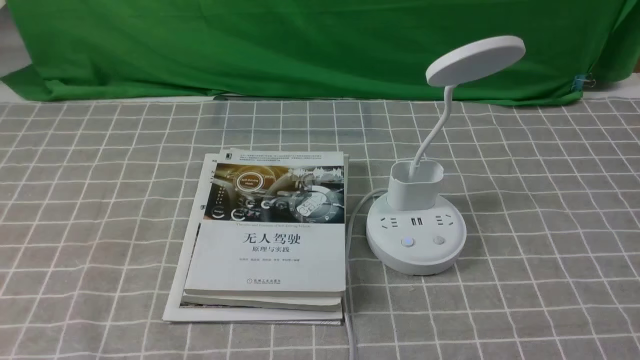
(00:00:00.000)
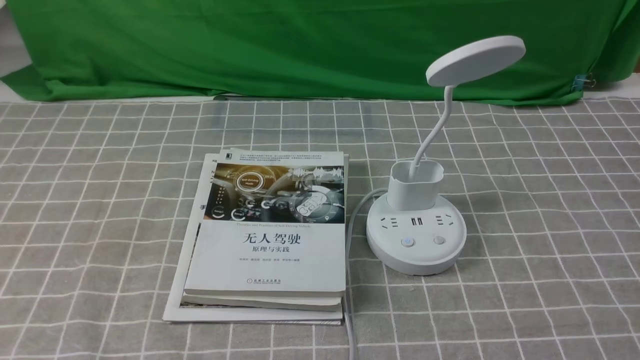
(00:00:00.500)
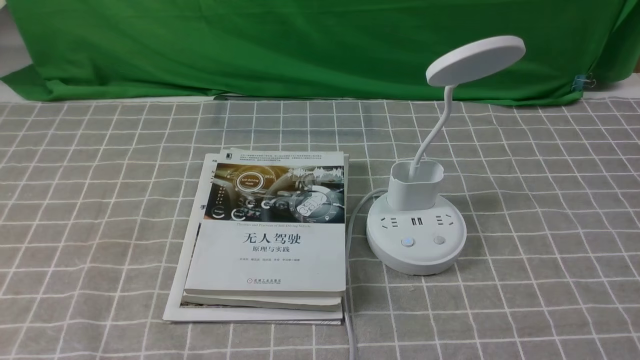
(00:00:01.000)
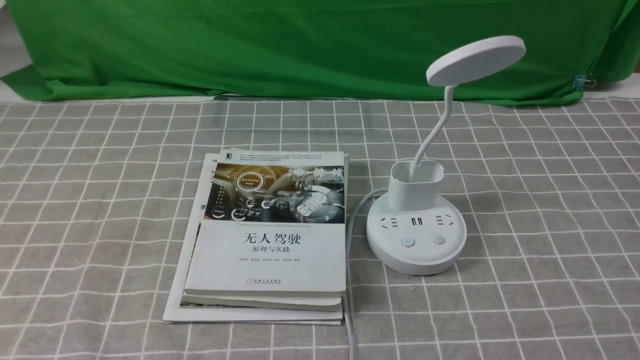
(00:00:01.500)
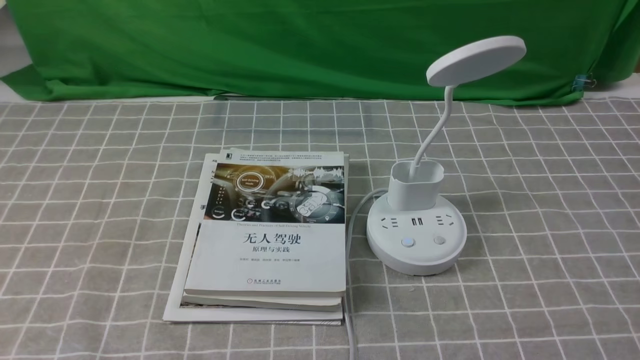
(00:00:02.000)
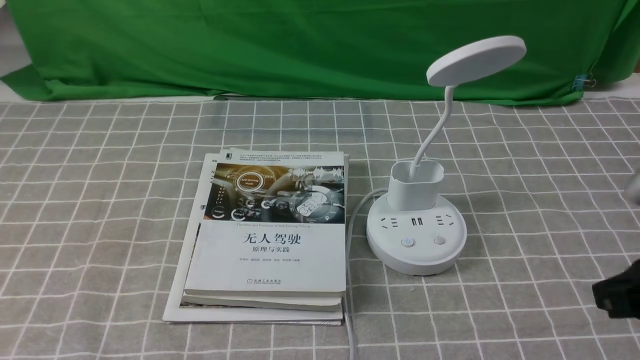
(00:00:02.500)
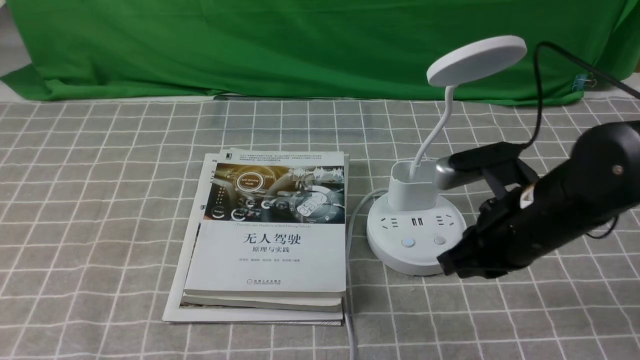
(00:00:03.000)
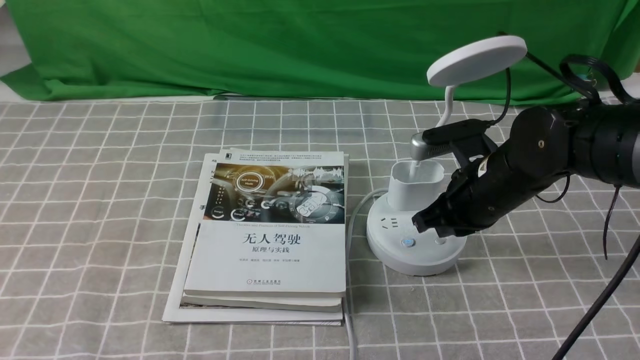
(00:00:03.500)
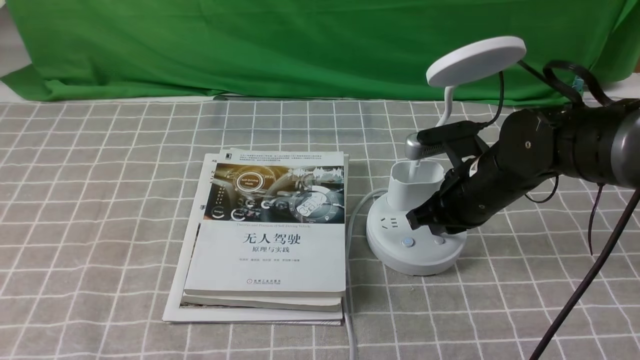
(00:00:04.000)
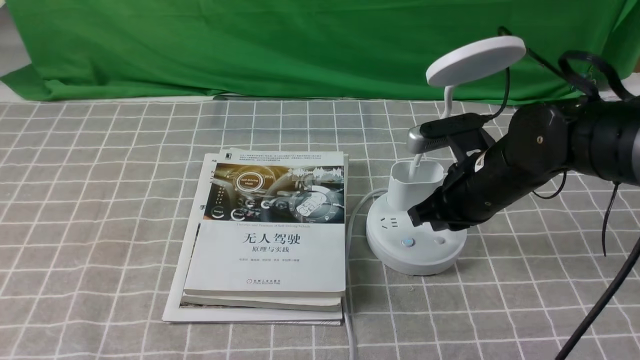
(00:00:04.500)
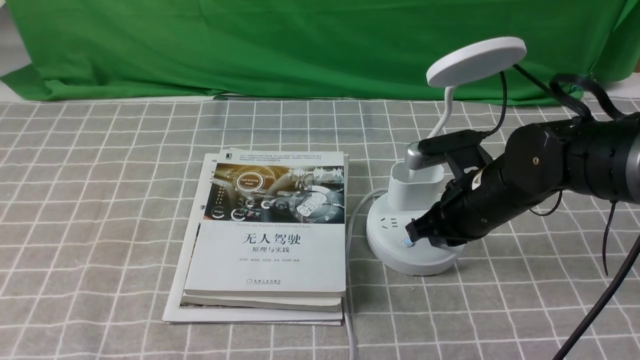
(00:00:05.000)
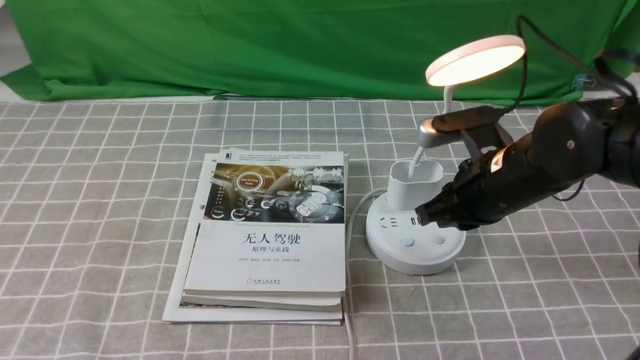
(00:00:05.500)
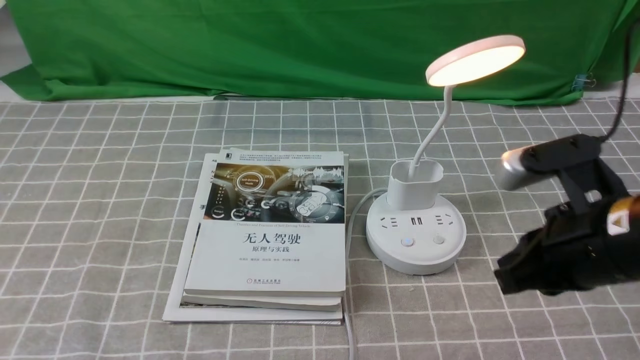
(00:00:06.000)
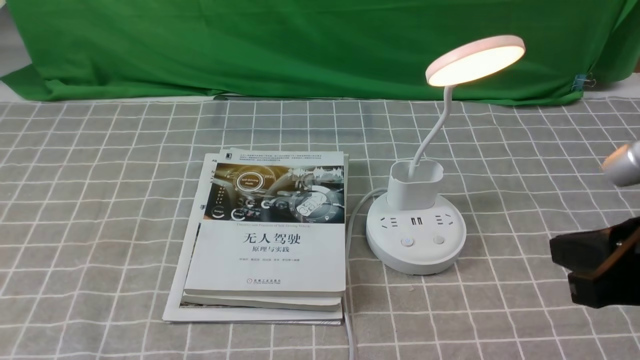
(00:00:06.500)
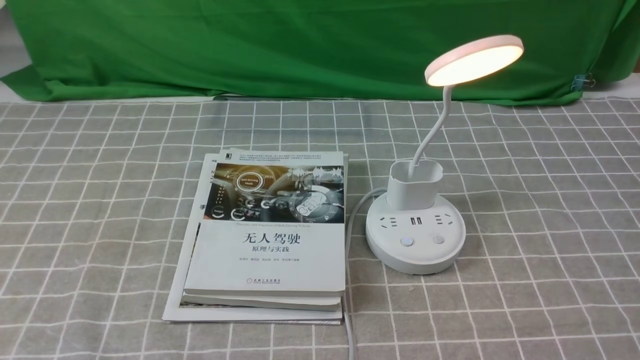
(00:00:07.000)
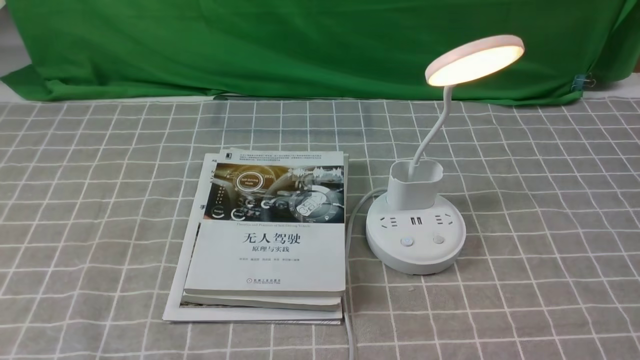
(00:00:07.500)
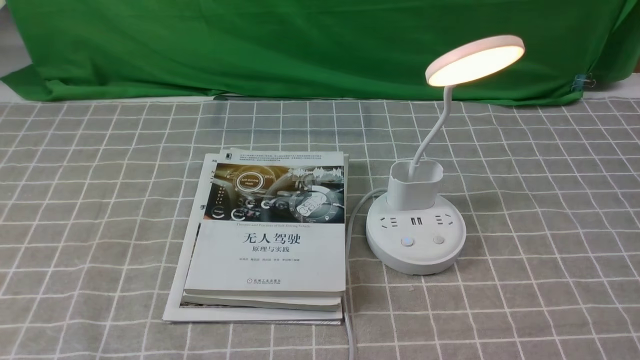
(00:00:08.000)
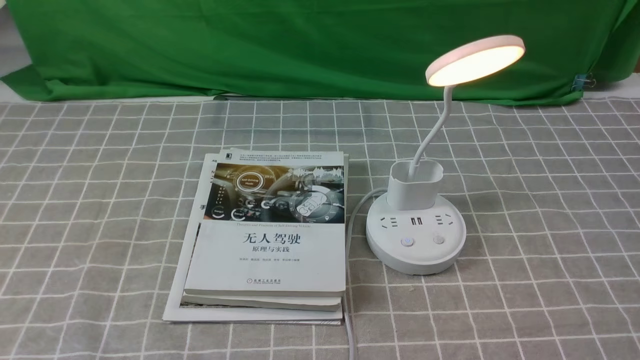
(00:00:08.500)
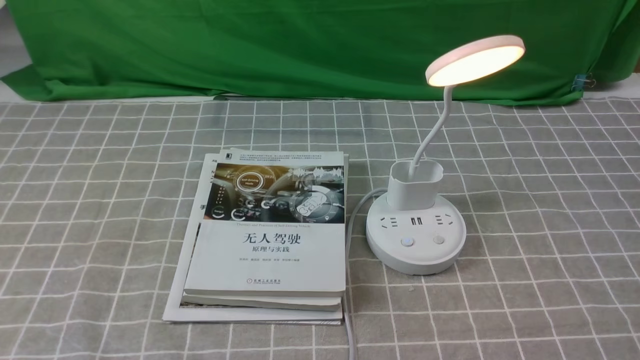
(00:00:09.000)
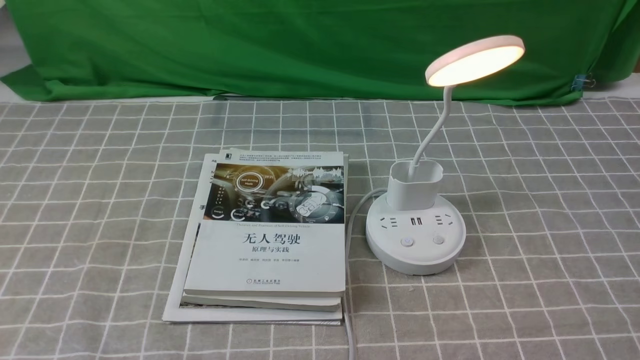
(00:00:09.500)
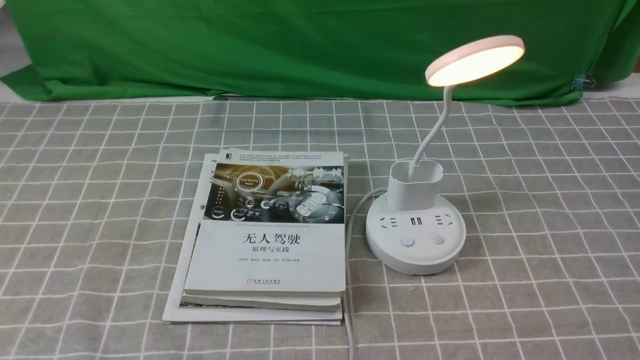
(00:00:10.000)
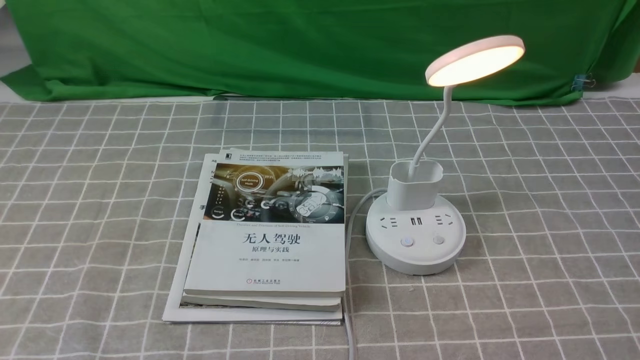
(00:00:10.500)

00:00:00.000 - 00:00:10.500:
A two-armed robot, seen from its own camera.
Step, 00:00:00.000 - 00:00:05.500: use the right arm to press the button switch on the lamp holder.
00:00:02.000 - 00:00:04.000: The right gripper travels forward and to the left by approximately 30 cm.
00:00:04.000 - 00:00:06.500: The right gripper is displaced backward, upward and to the right by approximately 25 cm.
00:00:06.500 - 00:00:08.500: The right gripper travels downward, backward and to the right by about 15 cm.
